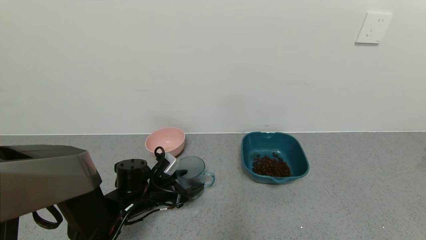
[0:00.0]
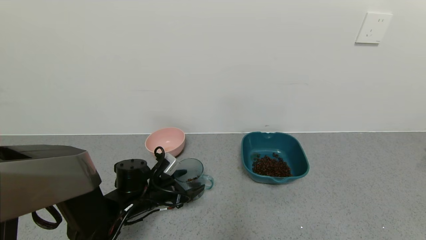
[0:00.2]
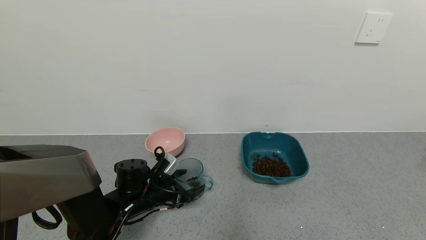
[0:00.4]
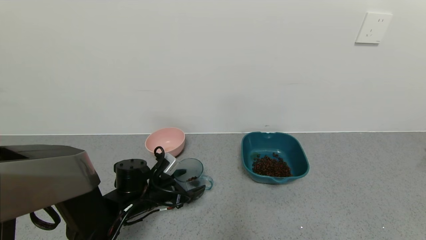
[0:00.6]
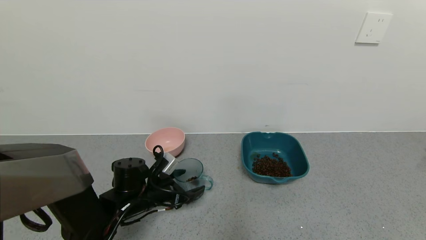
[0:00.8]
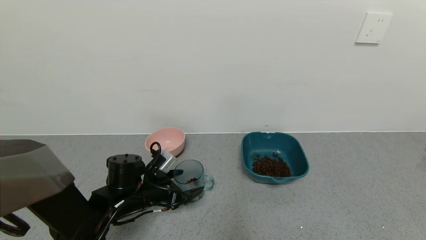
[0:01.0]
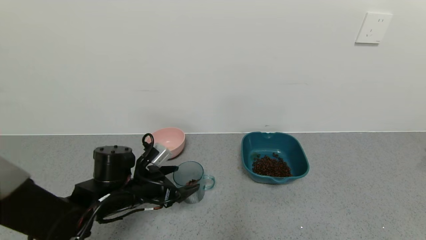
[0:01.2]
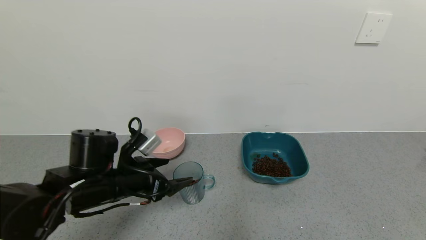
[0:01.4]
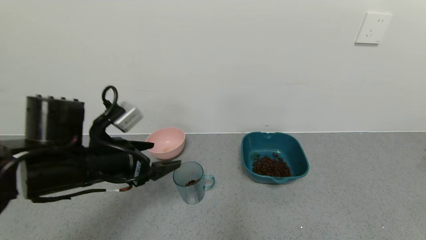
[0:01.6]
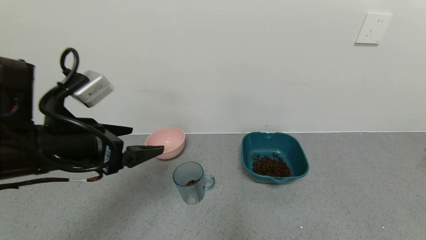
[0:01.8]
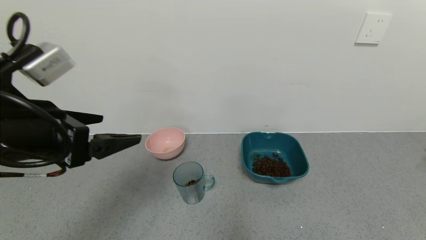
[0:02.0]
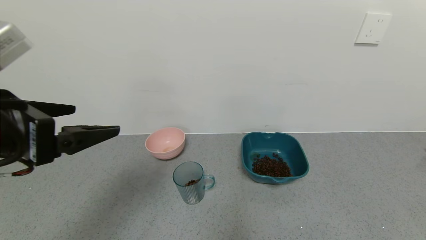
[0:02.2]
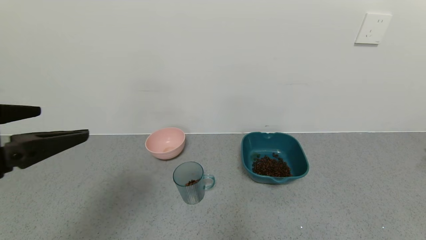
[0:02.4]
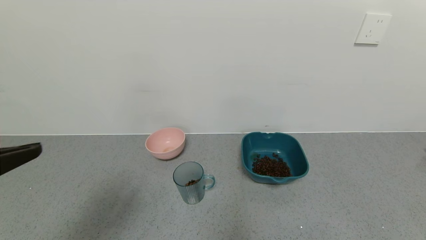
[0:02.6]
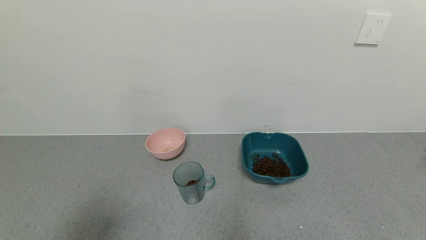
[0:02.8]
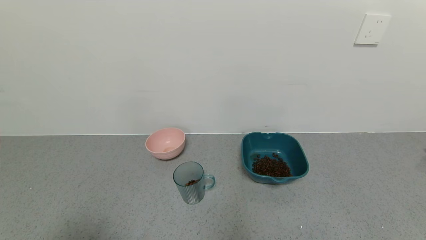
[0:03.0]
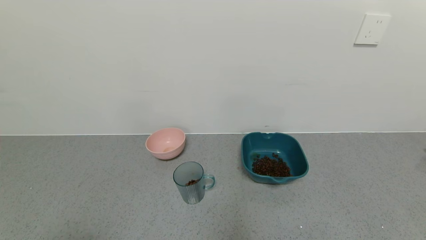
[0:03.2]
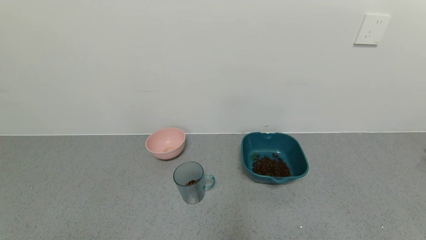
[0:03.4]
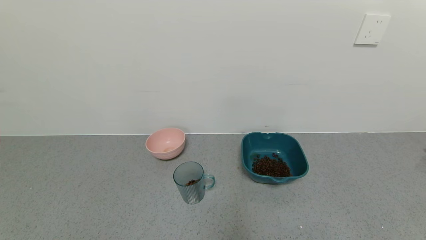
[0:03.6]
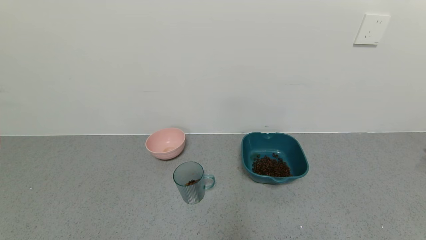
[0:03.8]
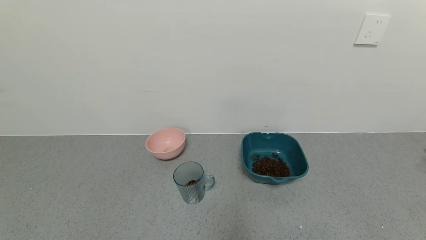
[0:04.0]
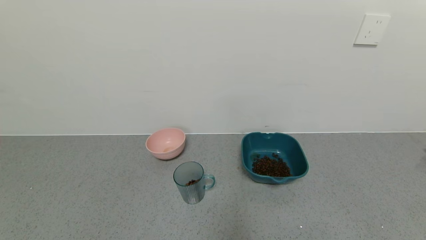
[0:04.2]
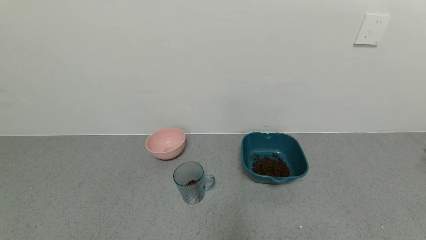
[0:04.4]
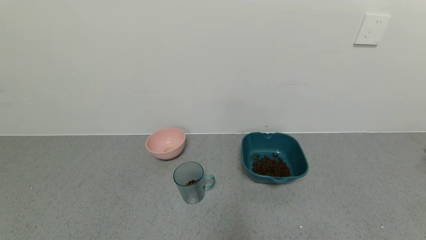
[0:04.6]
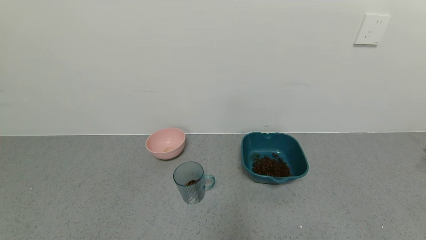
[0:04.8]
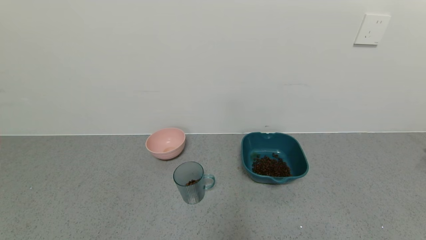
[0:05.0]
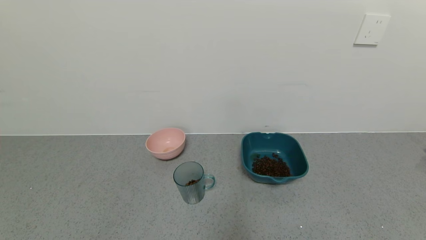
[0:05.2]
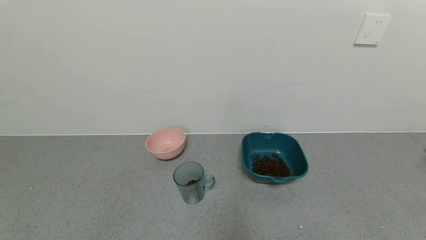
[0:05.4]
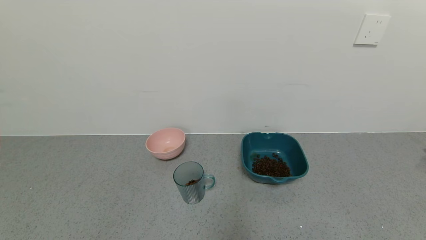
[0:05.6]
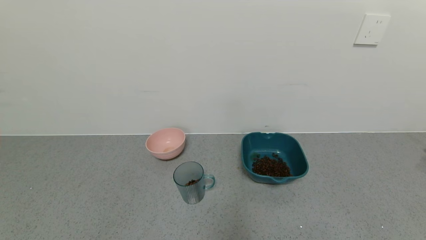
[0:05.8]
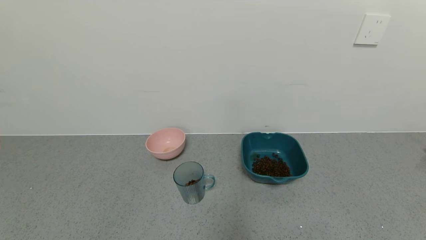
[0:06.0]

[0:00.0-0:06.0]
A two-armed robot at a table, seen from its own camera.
Task of the whole recording: use a gripper to pick up the cup and pour the solid into a bowl or tray.
0:00.0 to 0:01.6: The left gripper travels upward by some 20 cm, and opens up.
0:01.6 to 0:03.0: The left gripper goes some 25 cm backward.
